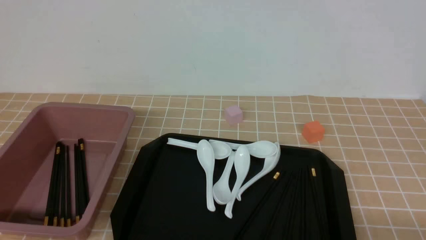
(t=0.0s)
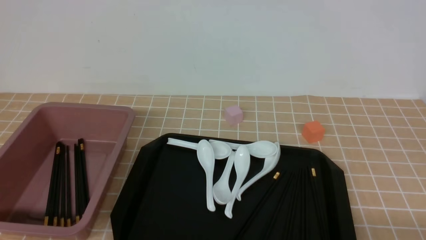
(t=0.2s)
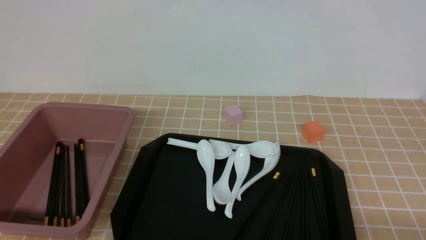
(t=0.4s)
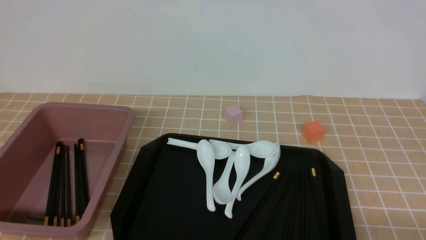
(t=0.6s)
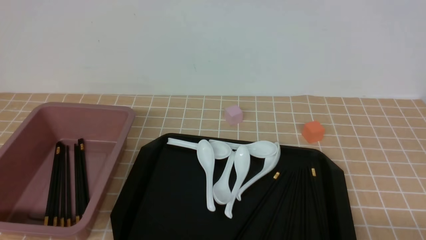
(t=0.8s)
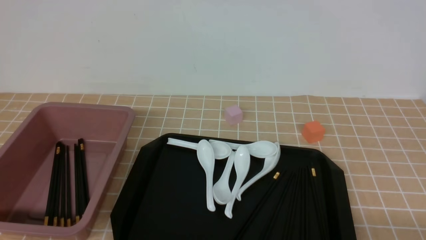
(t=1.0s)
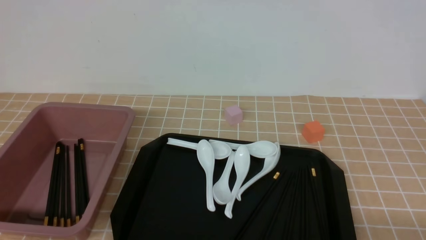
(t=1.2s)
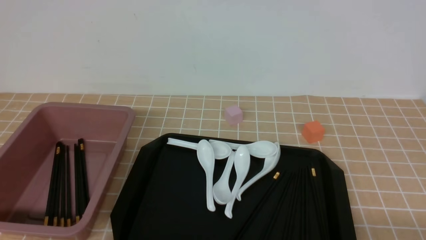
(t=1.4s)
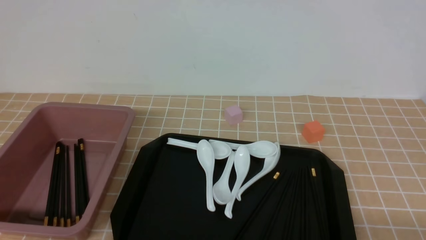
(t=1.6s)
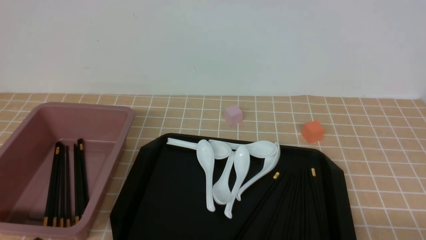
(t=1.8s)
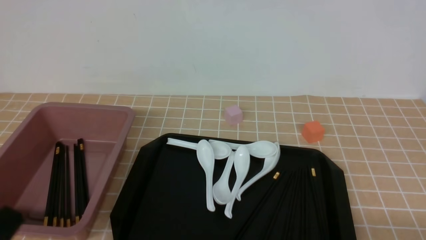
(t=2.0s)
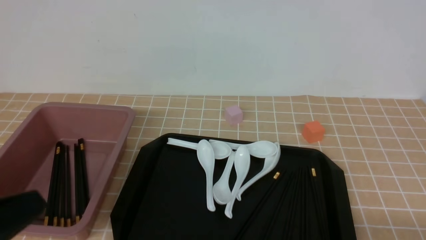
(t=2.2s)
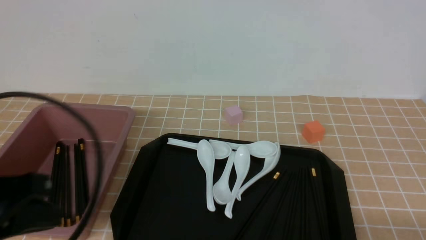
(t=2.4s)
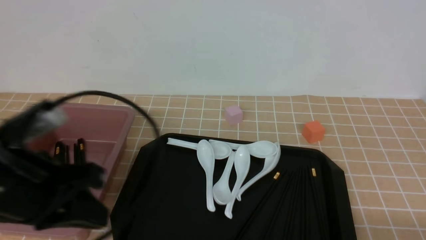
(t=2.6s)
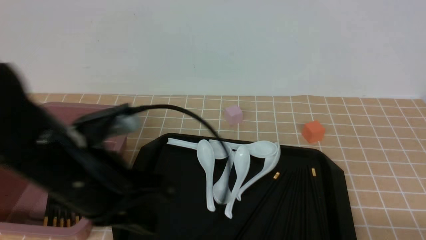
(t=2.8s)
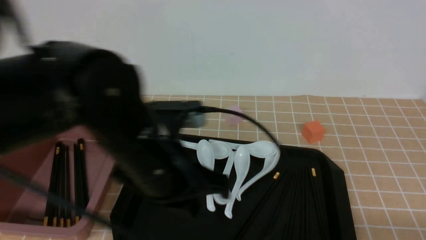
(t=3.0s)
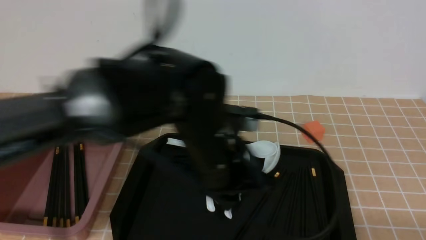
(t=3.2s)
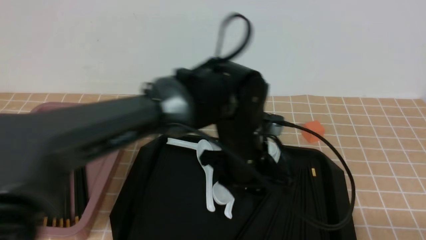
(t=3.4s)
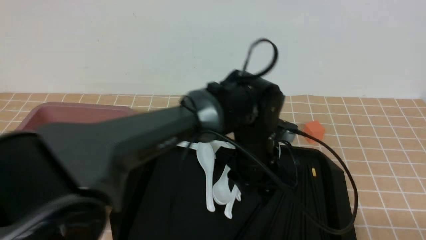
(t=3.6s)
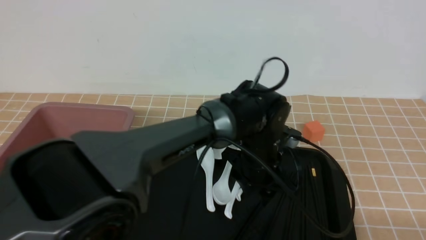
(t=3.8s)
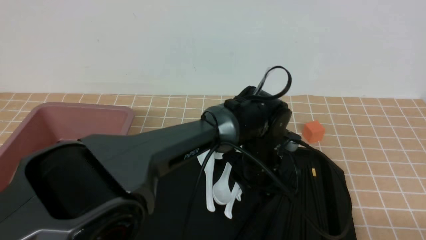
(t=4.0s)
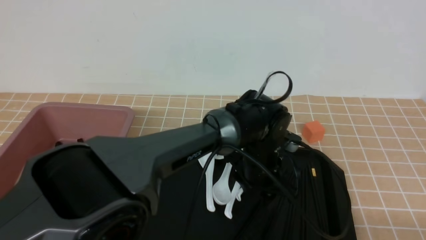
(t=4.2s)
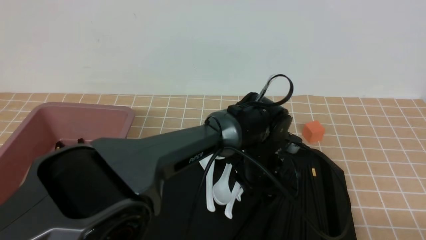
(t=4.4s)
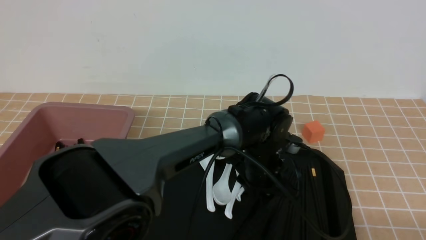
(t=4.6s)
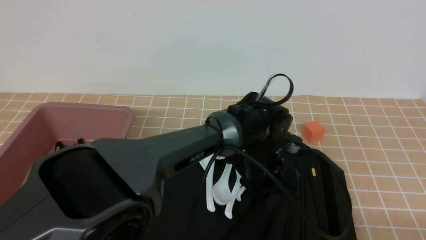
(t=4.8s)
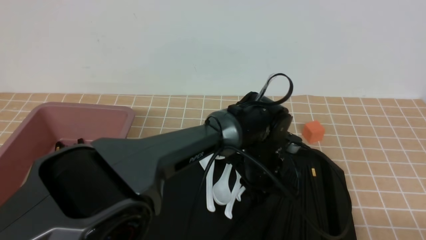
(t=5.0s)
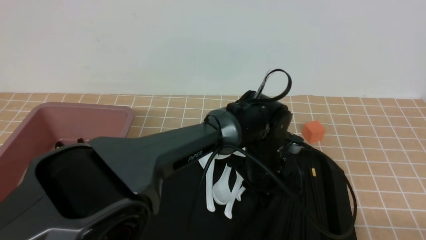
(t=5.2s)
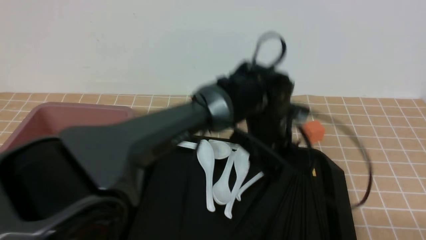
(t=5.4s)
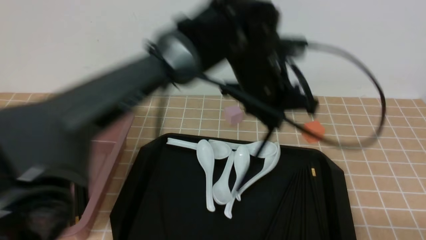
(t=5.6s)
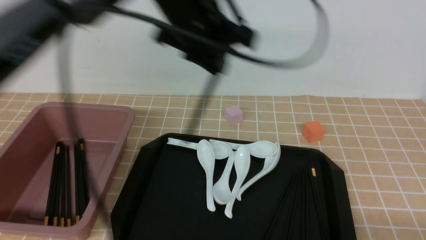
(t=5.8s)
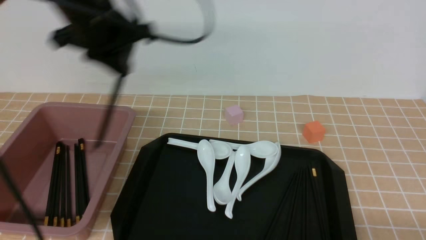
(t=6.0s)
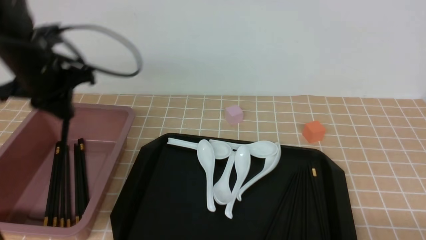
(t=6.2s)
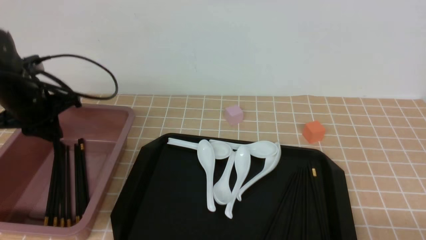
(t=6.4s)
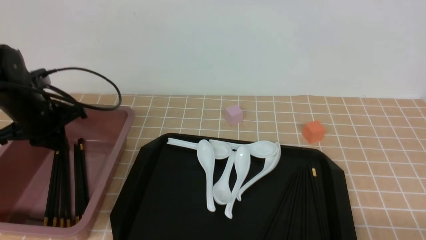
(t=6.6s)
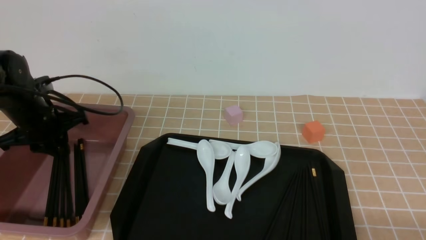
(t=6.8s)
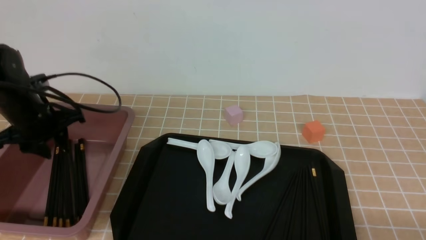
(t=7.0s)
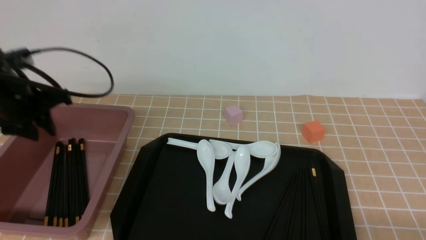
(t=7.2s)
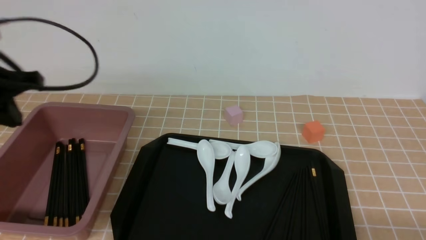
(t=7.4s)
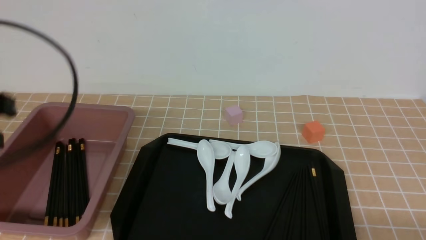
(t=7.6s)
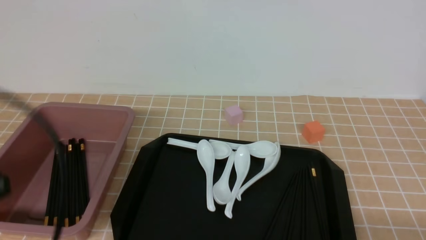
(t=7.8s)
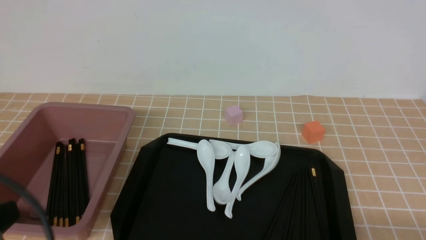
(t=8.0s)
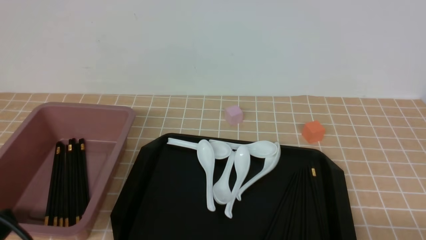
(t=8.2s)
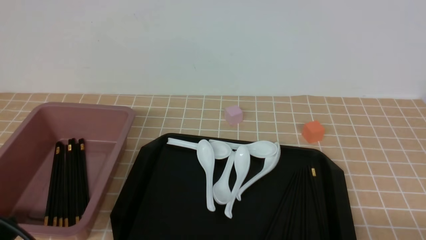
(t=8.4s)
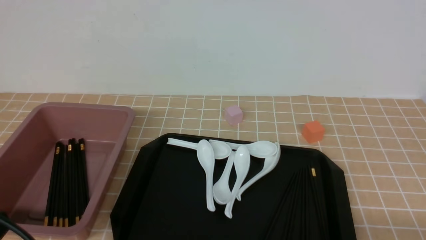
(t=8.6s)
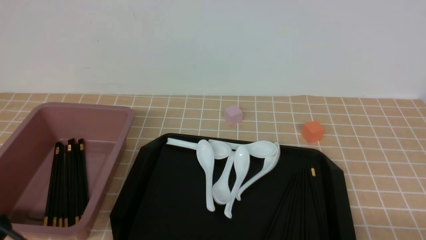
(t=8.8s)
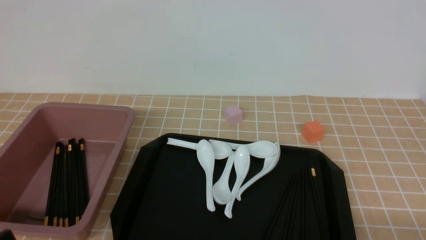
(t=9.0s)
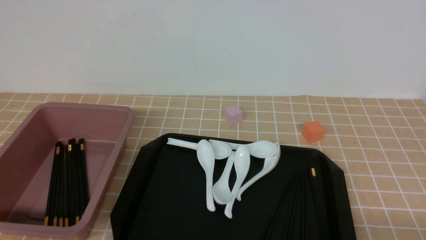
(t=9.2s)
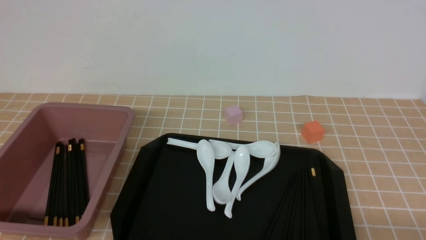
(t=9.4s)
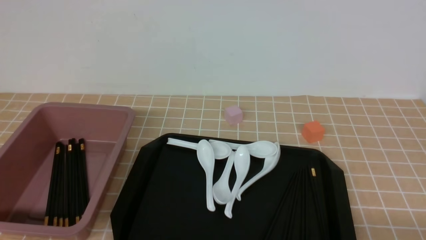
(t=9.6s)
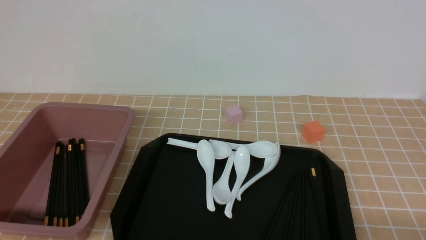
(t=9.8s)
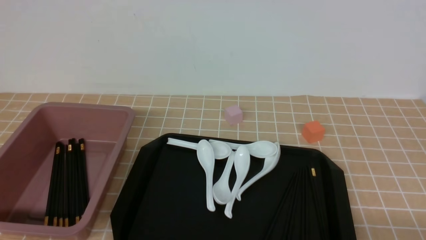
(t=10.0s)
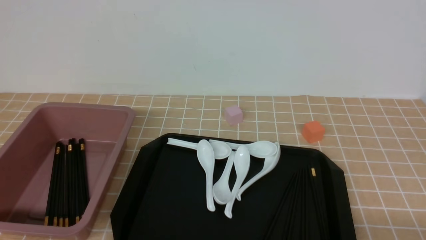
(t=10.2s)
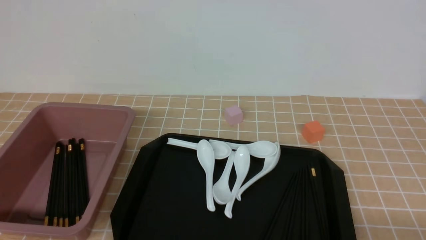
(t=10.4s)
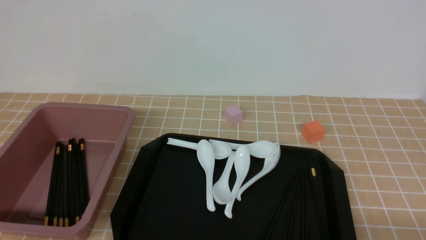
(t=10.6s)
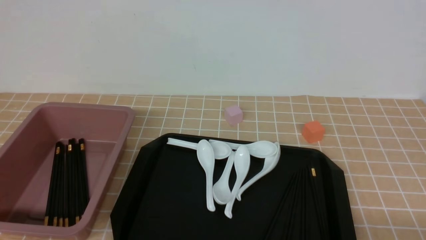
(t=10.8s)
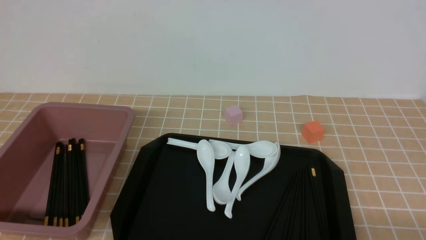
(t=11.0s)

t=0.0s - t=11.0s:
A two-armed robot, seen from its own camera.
Step, t=0.0s - t=5.4s: use the left arm to grab a pair of chopsticks.
Step, t=5.6s - t=7.2s: use the left arm to put the chopsticks into the lunch box.
t=1.6s - t=3.2s: The left gripper moves to the right and forward, approximately 30 cm, and closes, then reopens.
t=3.2s - t=4.8s: The left gripper goes about 15 cm downward, forward and to the right, and opens, then closes again.
t=4.8s - t=6.2s: The left gripper goes some 35 cm to the left and upward.
t=6.2s - t=7.8s: The left gripper moves backward, roughly 25 cm, and opens, then closes again.
t=7.8s - t=9.4s: The left gripper moves downward and backward, approximately 15 cm.
t=9.4s - t=11.0s: The two grippers keep their place.
